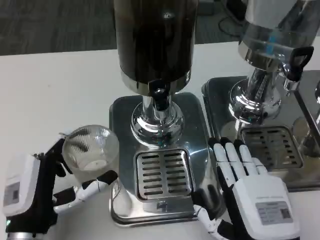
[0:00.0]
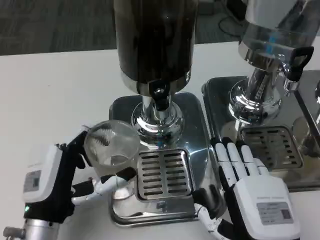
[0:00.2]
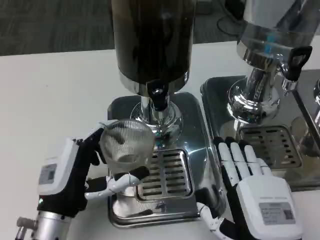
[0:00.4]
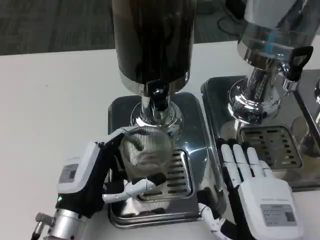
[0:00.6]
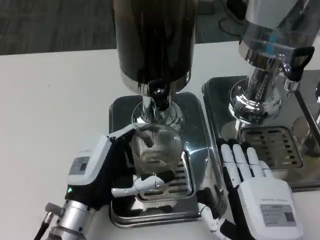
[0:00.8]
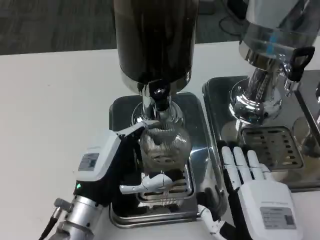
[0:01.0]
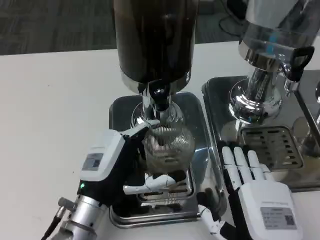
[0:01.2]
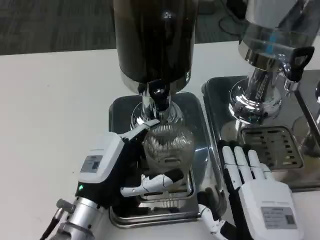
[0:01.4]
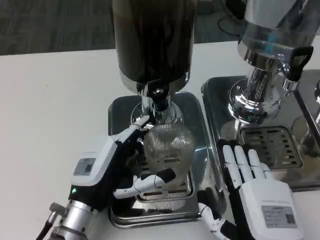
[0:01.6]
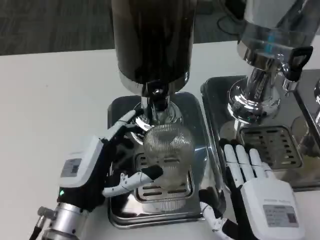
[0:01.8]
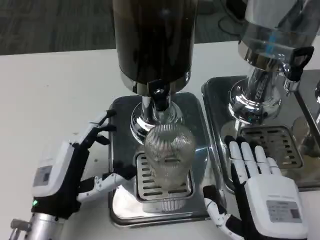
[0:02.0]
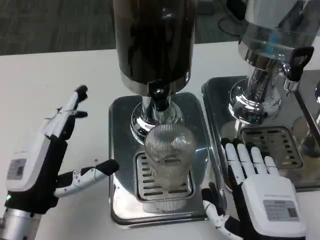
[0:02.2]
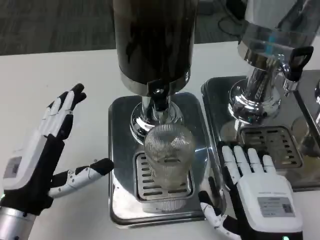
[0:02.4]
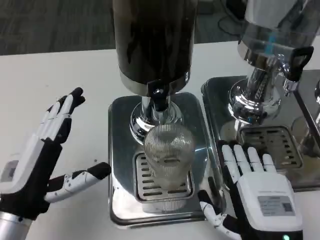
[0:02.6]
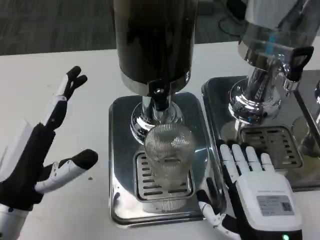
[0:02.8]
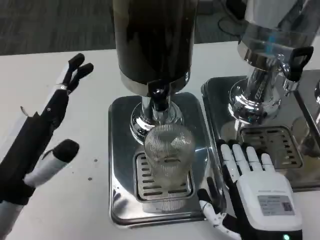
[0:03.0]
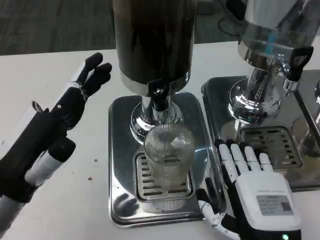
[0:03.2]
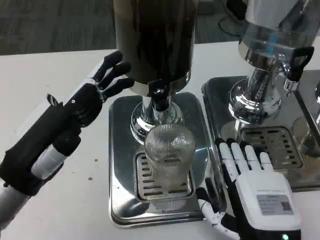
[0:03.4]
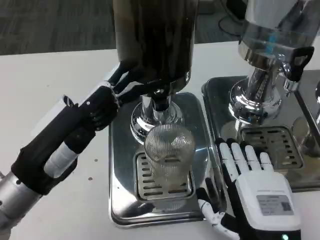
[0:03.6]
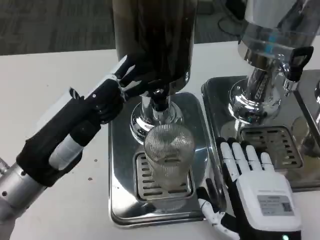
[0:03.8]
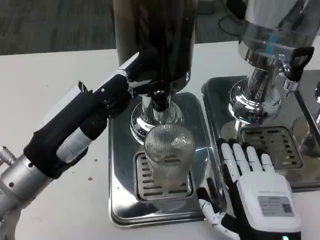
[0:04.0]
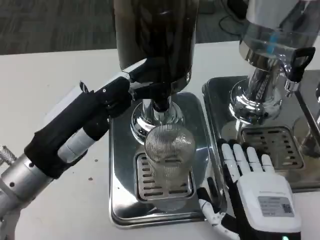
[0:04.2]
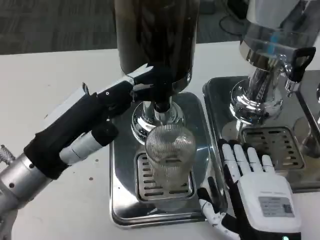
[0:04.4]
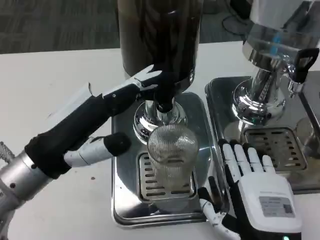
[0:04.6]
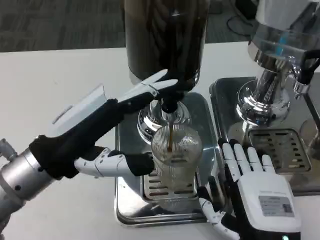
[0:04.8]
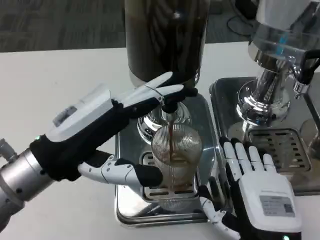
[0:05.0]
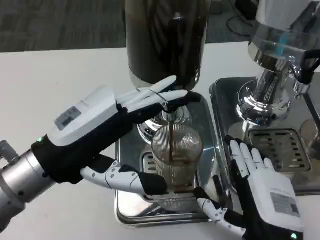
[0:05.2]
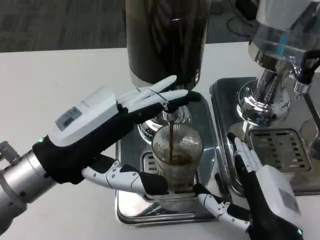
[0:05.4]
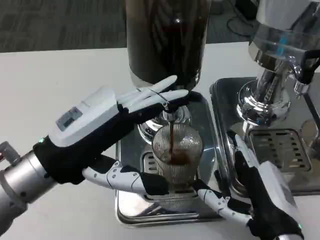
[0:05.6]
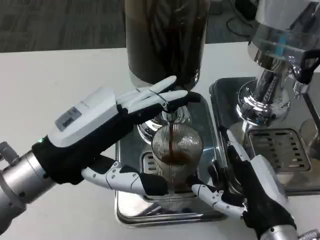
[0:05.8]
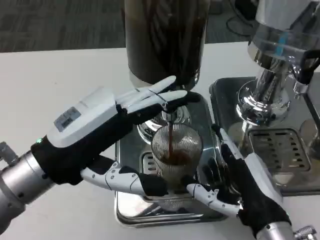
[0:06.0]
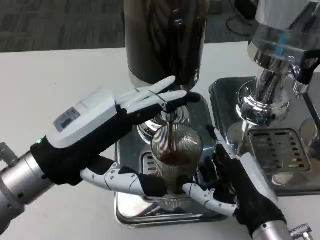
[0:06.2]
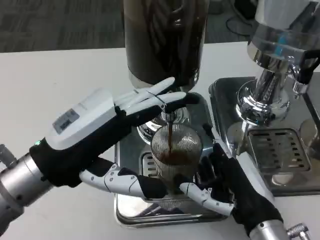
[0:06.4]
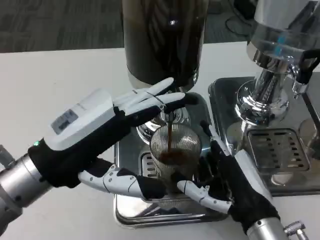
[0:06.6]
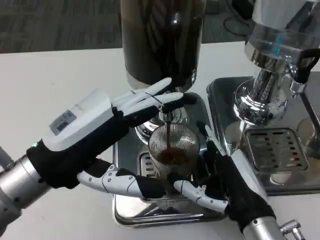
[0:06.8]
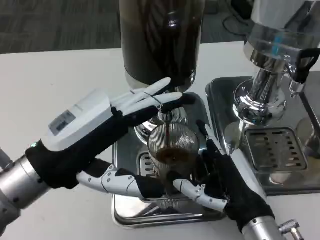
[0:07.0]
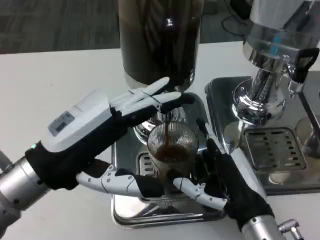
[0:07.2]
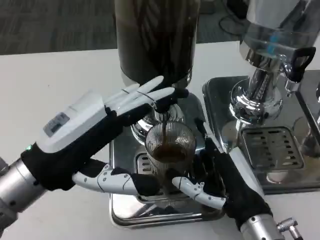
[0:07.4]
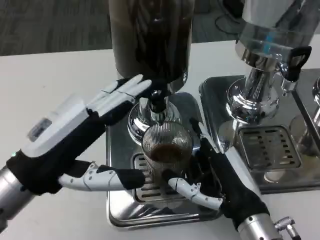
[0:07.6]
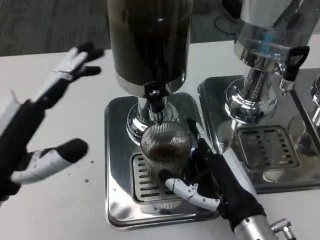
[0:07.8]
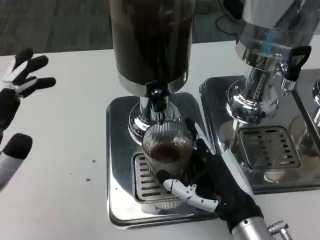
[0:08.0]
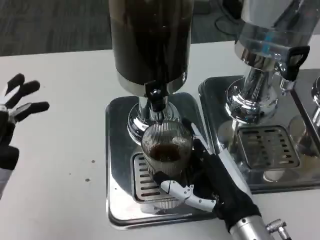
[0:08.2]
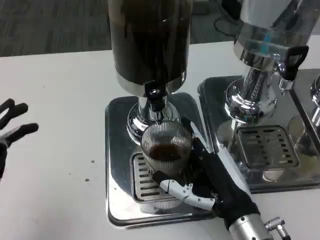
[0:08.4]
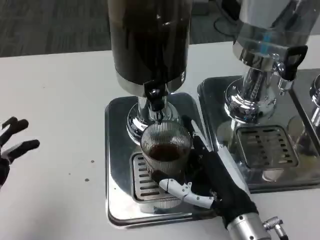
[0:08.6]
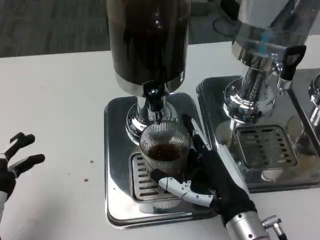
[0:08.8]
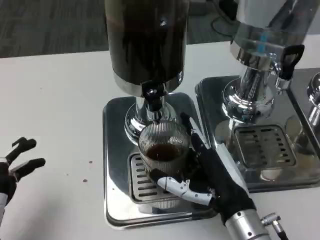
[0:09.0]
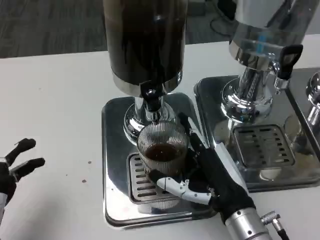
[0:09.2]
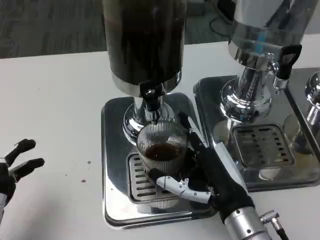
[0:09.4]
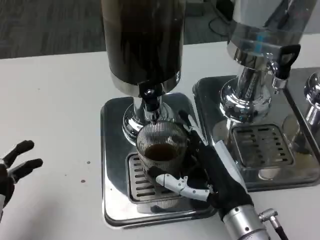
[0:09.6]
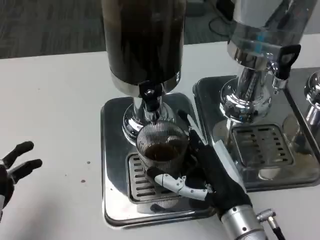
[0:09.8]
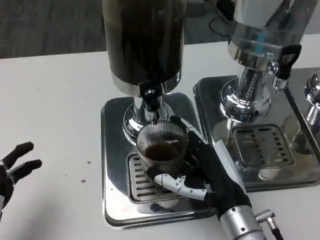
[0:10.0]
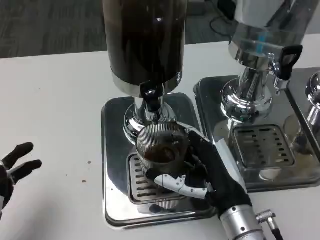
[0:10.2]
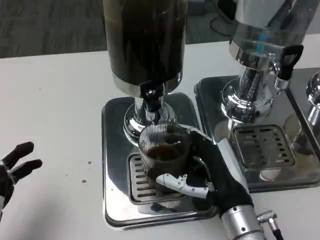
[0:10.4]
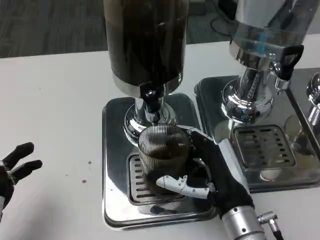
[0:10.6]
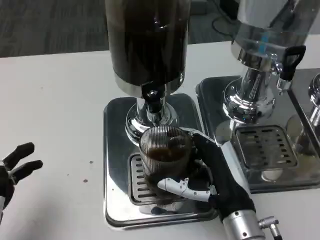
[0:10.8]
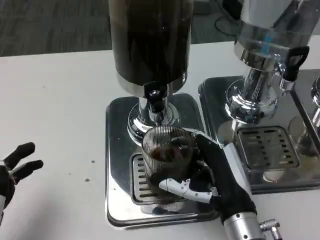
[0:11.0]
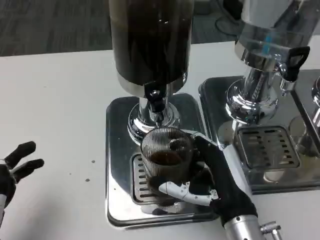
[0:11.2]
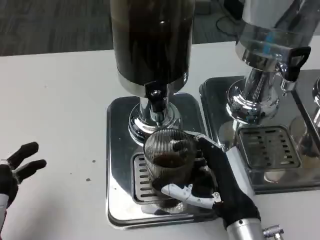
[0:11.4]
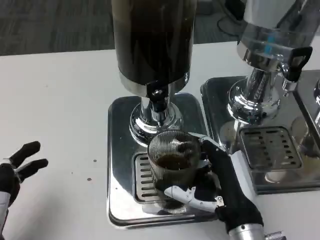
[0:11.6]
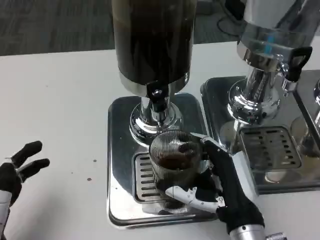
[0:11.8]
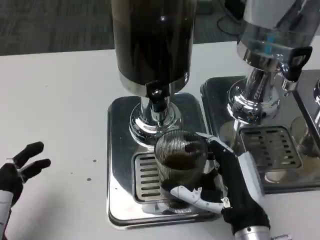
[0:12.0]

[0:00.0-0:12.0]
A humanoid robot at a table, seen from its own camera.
Task of the whole recording: Grasp the cup under the faucet to collect the drink, then remove the cup.
0.0 to 1.6 s: The left hand changes place by some 5 cm.
1.6 to 3.0 s: The left hand goes approximately 10 cm upward and to the left.
3.0 to 4.4 s: The left hand ends up about 5 cm from where it was.
7.6 to 9.0 s: The left hand is displaced downward and backward by some 15 cm.
9.0 to 10.4 s: The hands move only a little.

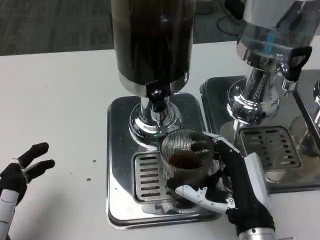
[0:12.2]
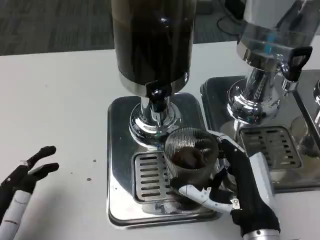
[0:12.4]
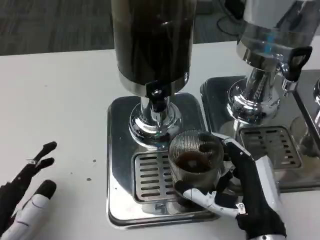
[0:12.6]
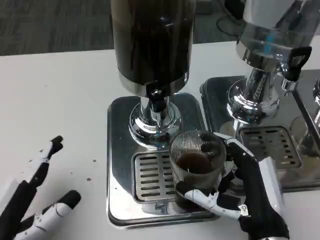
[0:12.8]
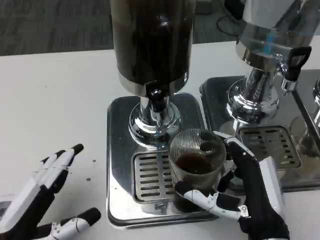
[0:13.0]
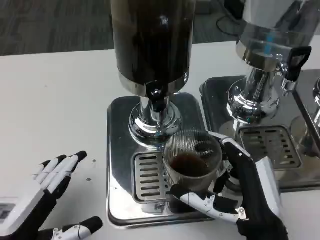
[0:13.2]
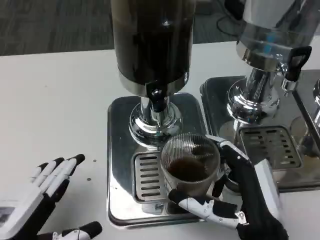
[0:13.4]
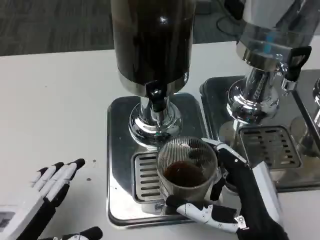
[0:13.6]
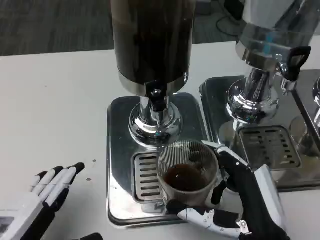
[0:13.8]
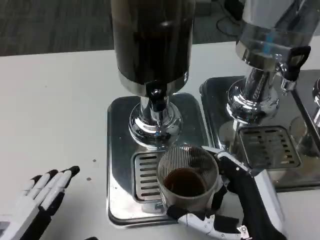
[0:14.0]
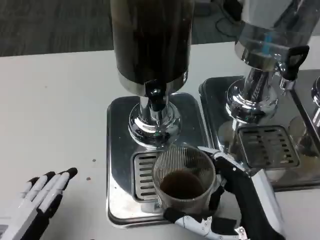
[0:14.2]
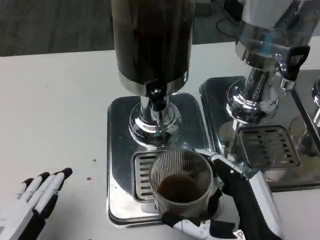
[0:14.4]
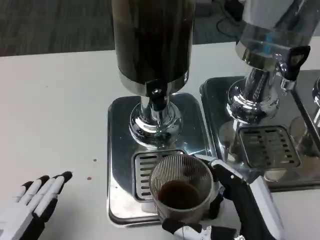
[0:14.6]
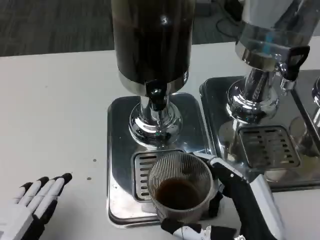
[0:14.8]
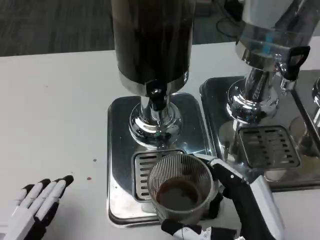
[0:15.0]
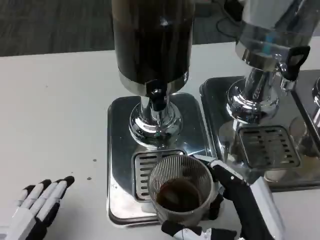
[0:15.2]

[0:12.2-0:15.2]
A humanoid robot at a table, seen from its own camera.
Task of the whole recording: Grasp the cup under the faucet to collect the drink, then remove the cup.
13.8 to 15.2 s: There are only small adjustments of the hands.

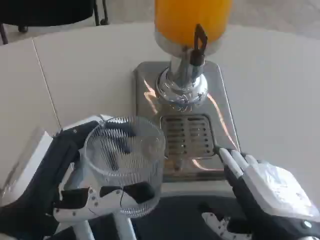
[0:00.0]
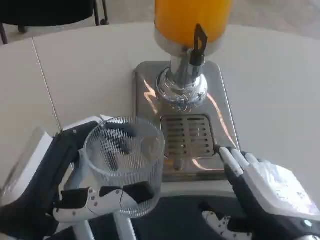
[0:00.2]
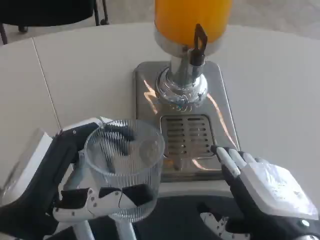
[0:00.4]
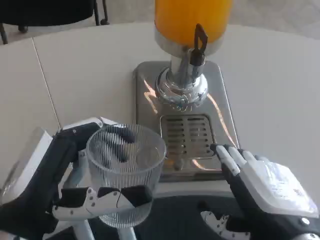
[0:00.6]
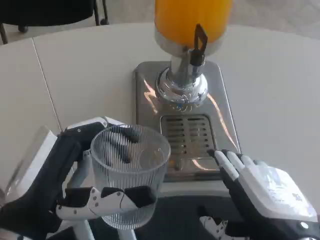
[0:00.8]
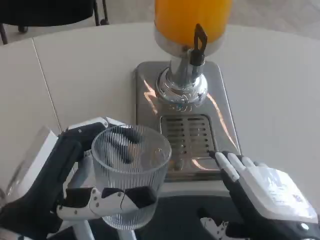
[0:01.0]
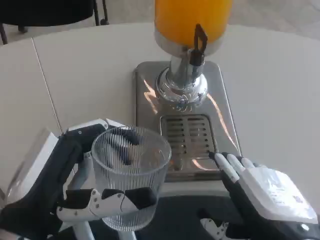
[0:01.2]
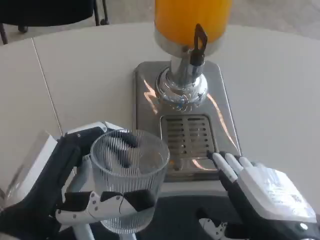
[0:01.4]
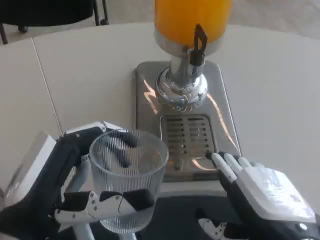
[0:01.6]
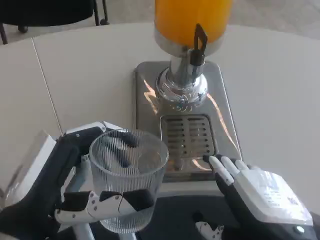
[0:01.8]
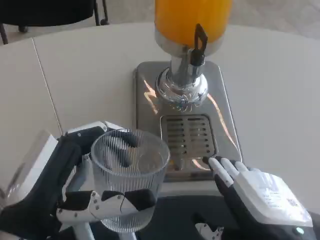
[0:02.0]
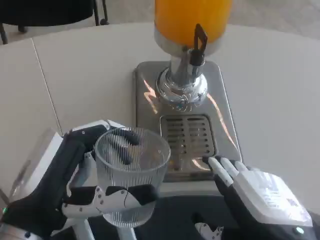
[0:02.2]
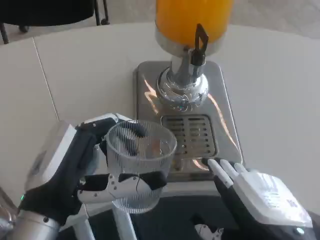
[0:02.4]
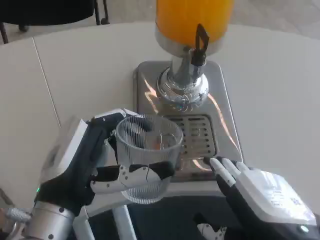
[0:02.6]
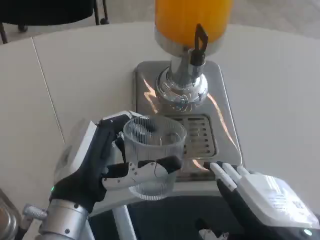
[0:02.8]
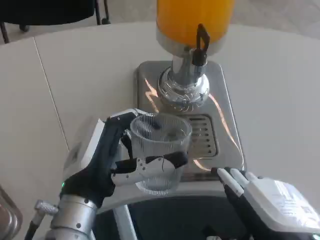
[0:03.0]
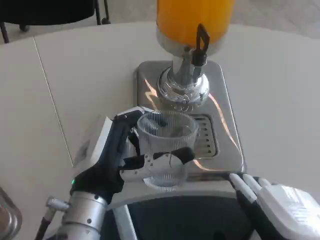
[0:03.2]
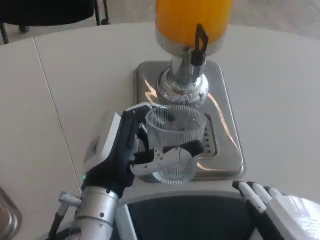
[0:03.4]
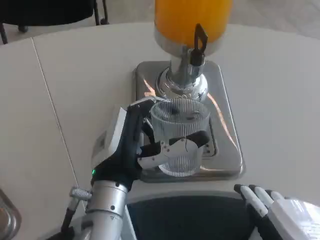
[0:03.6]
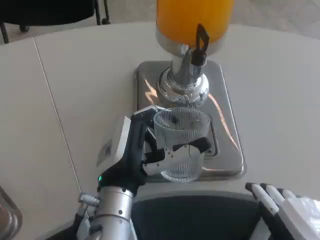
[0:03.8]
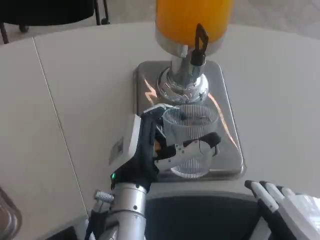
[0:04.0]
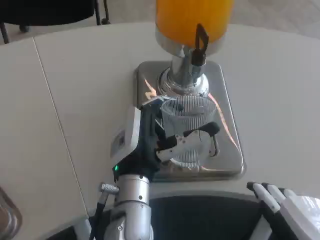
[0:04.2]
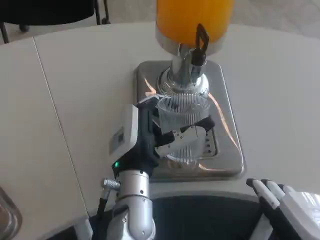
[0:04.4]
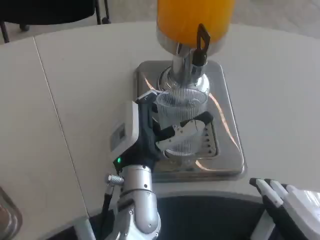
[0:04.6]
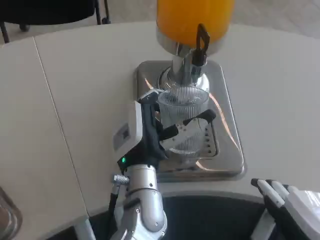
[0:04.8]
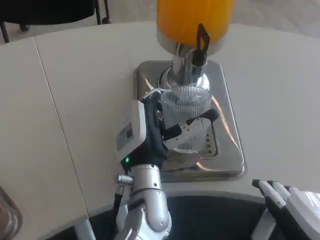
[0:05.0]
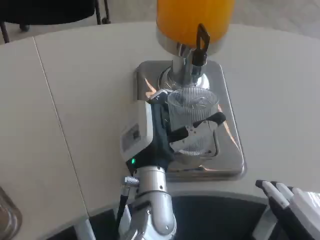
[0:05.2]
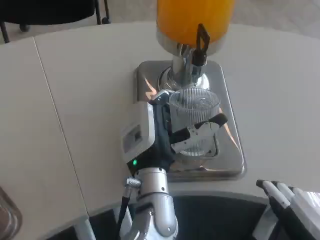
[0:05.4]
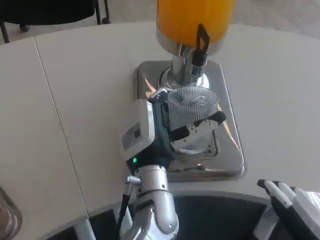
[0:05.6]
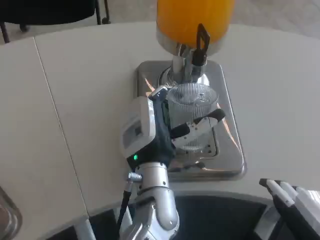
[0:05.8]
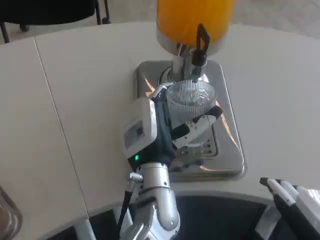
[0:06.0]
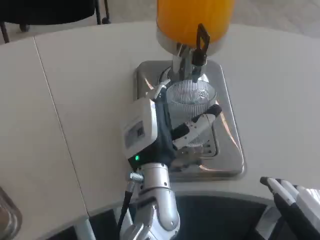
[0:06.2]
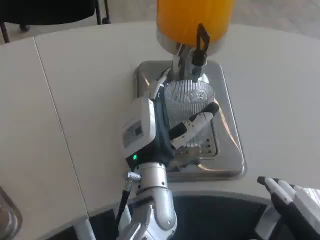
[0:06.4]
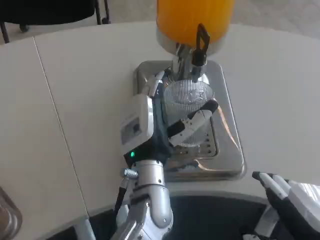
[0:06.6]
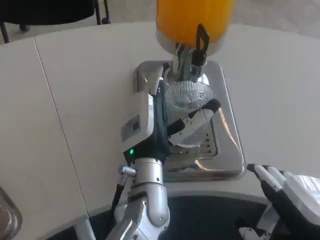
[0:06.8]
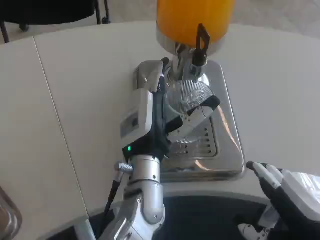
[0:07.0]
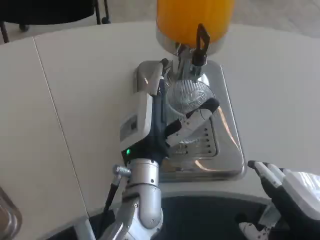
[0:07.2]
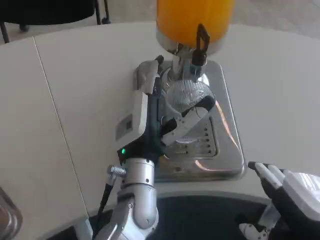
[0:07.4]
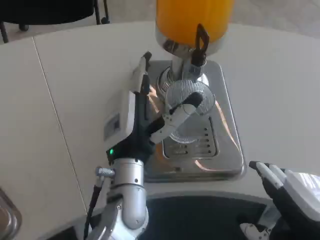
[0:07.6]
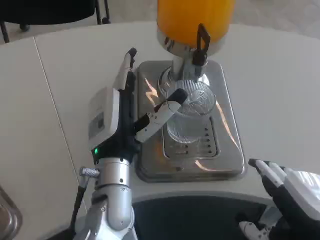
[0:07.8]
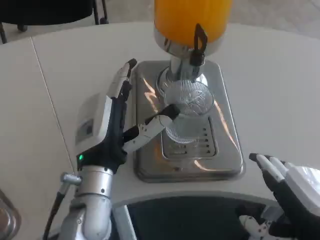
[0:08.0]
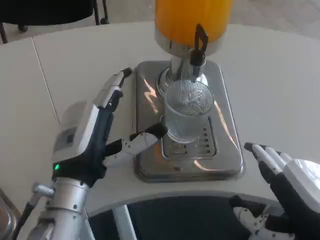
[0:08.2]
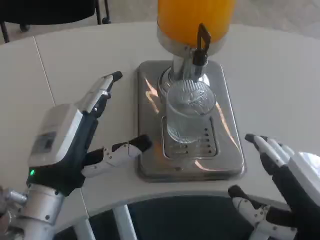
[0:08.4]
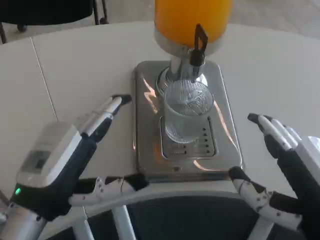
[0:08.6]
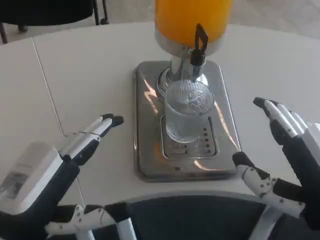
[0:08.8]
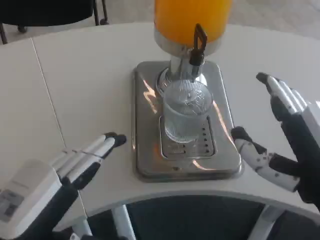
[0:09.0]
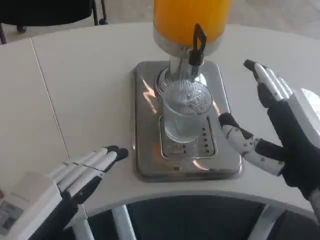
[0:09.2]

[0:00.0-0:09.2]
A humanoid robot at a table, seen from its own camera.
Task of the whole recording: Grasp the cup under the faucet to collect the drink, then remove the cup.
0.0 to 1.6 s: Neither hand changes place.
1.6 to 3.0 s: The left hand shifts some 10 cm forward and to the right.
3.0 to 4.6 s: The left hand is displaced to the right and forward by roughly 10 cm.
4.6 to 6.2 s: There are only small adjustments of the hands.
6.2 to 7.6 s: The left hand ends up roughly 5 cm from where it was.
7.6 to 9.2 s: The left hand heads to the left and backward, covering about 25 cm. Meanwhile the right hand moves about 5 cm.
